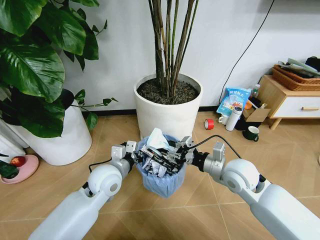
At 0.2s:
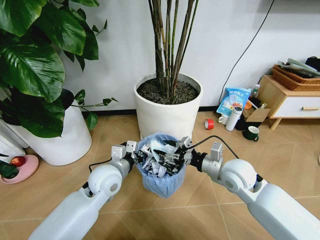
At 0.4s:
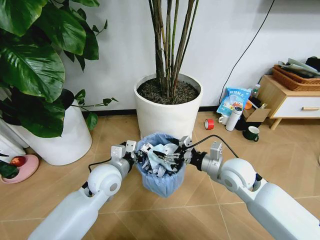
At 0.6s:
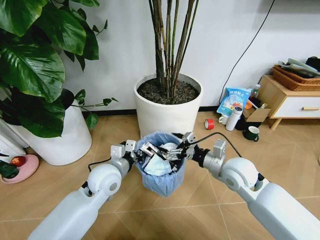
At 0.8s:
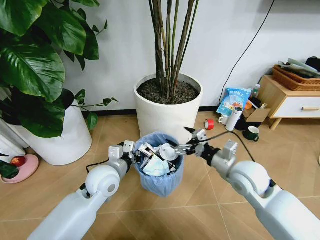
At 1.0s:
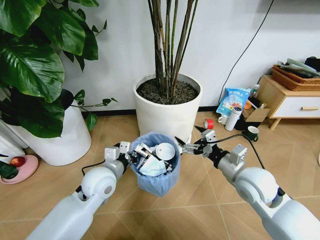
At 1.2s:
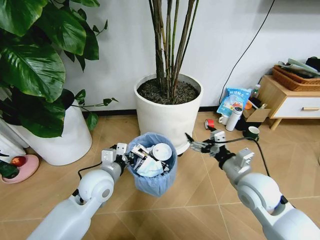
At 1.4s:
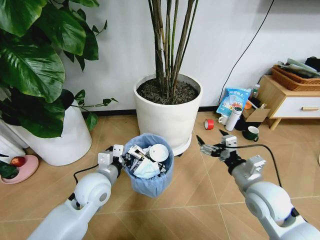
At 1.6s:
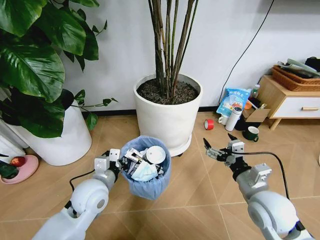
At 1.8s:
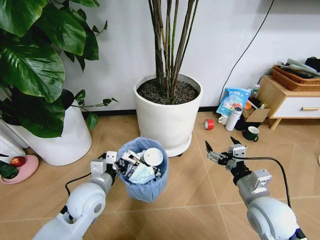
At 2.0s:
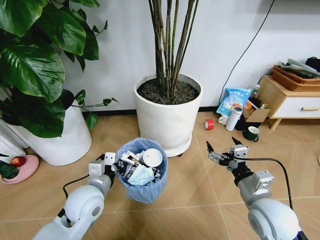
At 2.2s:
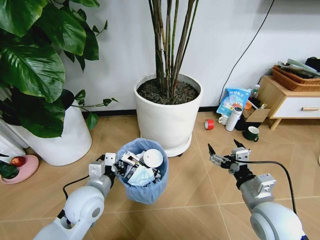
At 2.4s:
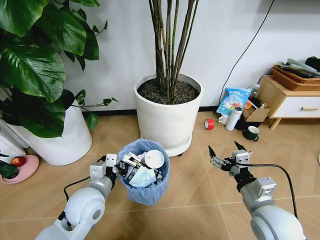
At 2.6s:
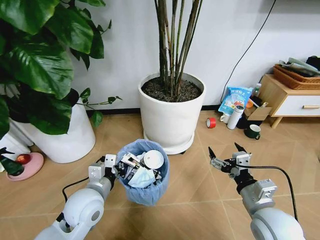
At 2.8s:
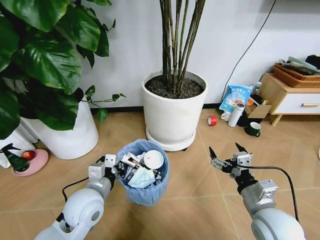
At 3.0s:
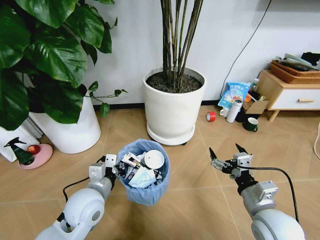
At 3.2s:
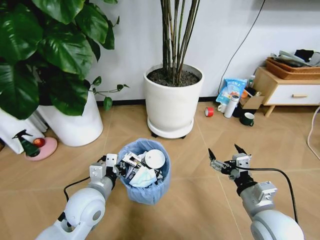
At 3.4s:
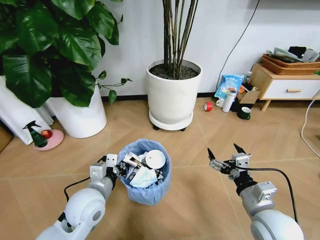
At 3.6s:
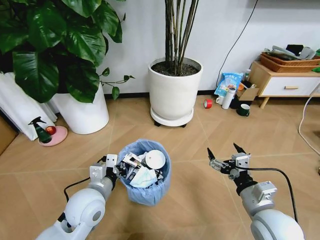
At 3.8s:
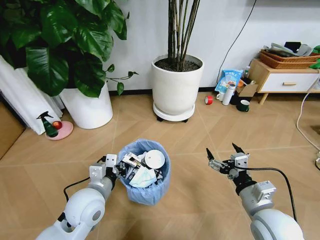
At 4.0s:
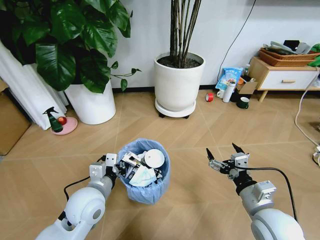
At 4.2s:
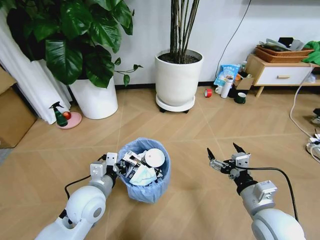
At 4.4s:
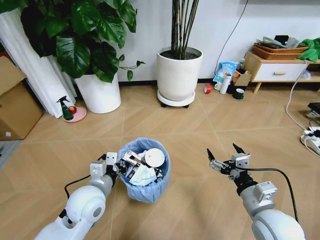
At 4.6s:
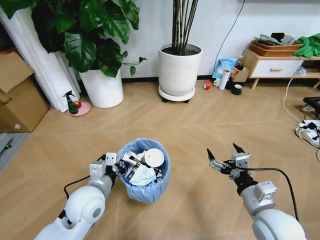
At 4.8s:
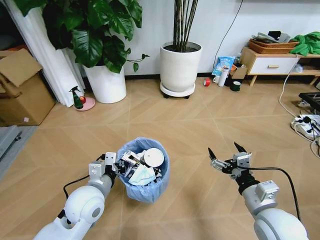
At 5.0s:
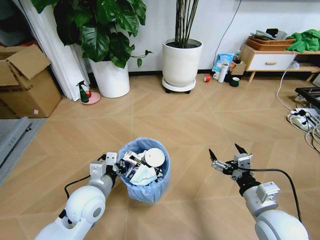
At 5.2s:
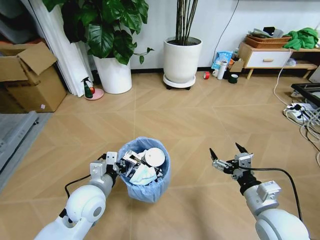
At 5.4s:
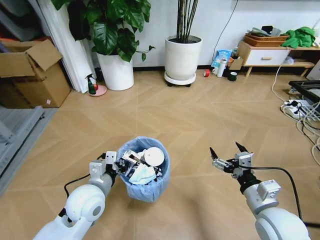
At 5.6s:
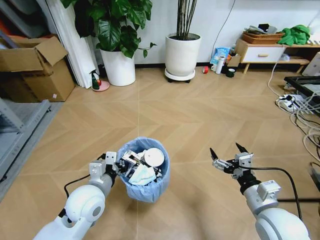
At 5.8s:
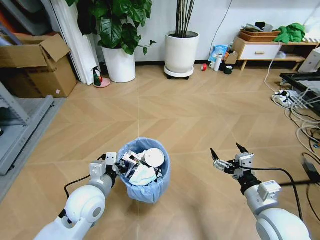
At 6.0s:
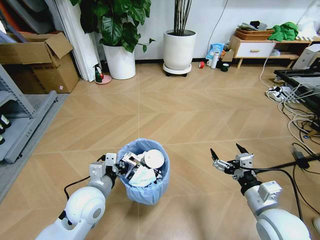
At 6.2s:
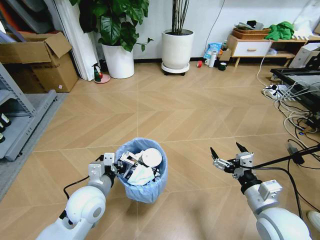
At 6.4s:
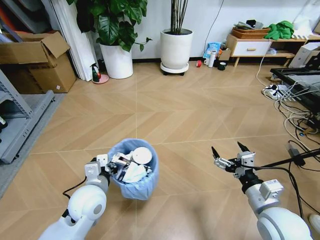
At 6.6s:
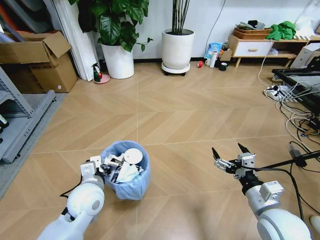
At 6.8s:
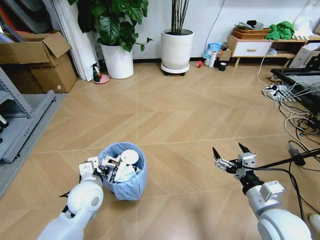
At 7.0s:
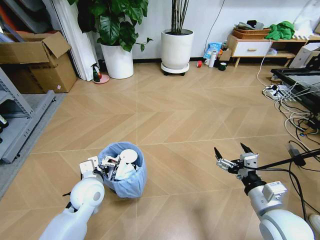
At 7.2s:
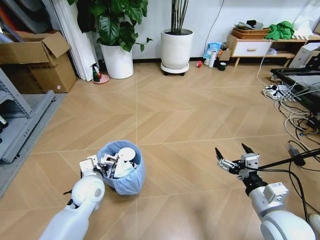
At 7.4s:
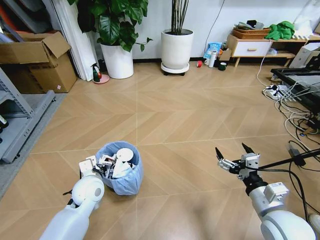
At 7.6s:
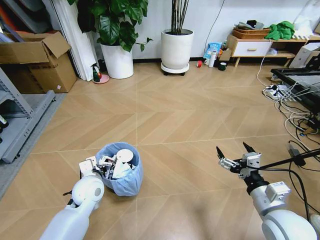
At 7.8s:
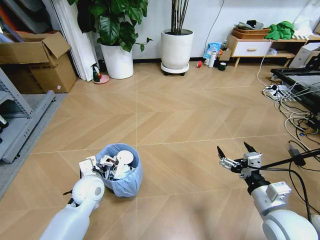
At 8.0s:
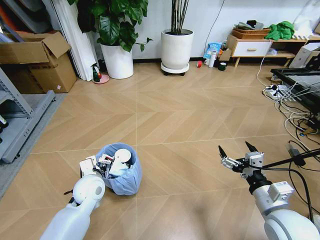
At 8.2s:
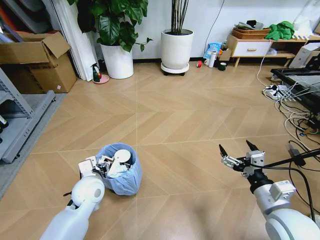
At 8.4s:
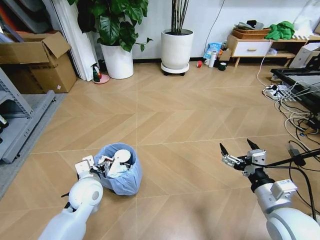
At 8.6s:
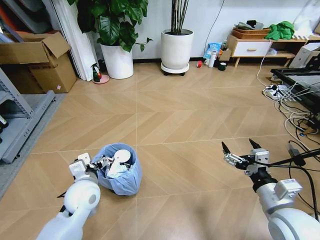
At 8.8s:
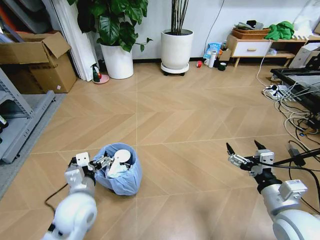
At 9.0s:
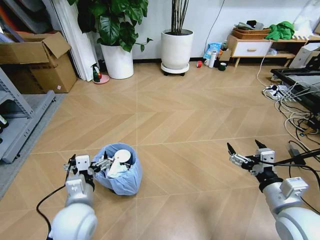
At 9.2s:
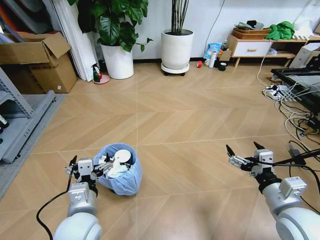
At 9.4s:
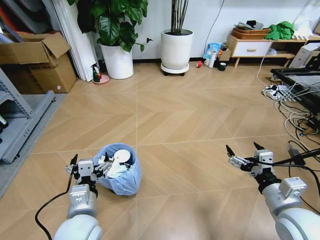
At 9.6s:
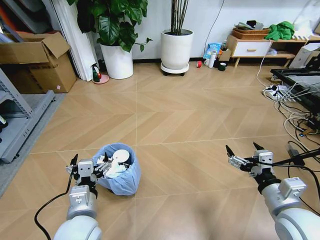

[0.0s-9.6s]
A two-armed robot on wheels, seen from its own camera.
Task of the whole recording: Pick up the trash bin and place the garbage on the floor into it.
0.0s to 1.6s: The right gripper shifts about 10 cm backward, and opens its fingers; the left gripper moves about 5 cm.
6.4s to 8.0s: The left gripper shifts about 10 cm forward and downward, and opens its fingers.
8.0s to 9.6s: The left gripper moves backward and upward, about 15 cm, and opens.

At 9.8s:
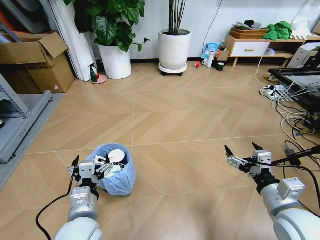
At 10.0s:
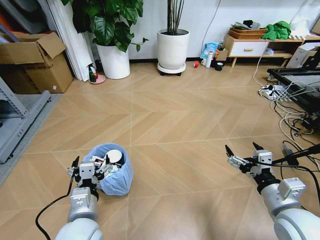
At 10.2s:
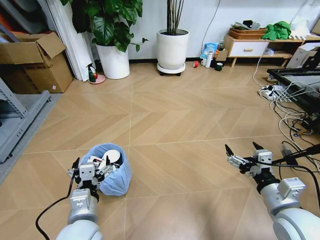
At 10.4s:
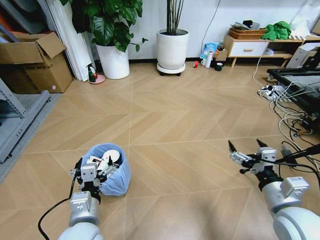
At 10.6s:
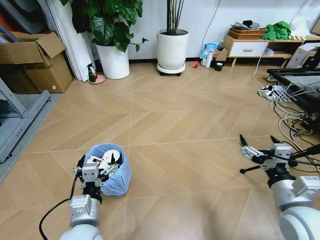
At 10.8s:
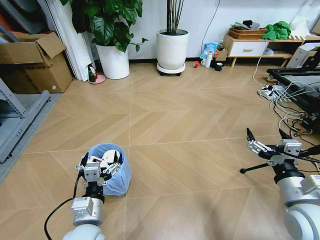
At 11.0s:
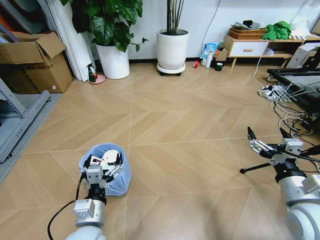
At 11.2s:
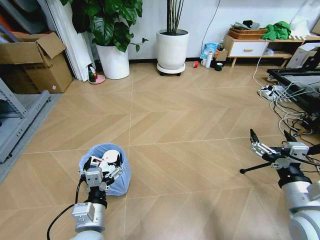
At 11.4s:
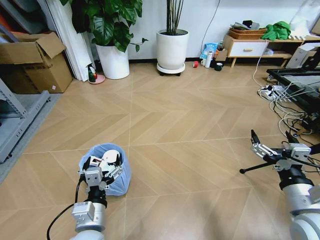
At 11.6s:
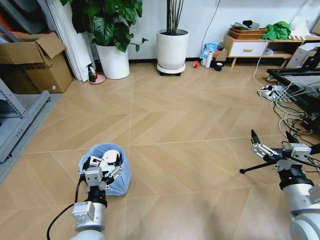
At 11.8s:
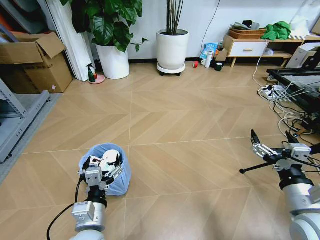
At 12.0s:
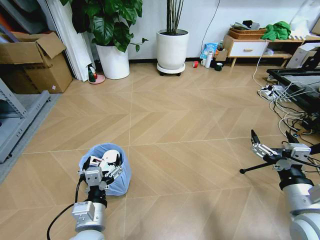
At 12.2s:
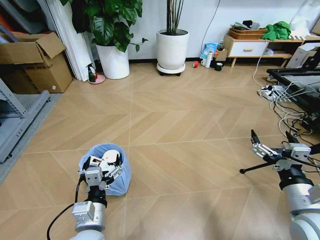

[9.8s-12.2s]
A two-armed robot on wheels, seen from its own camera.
Task of the whole recording: Pick up the trash bin and place the garbage on the floor into it.
9.8s to 12.2s: The grippers move only a little.
